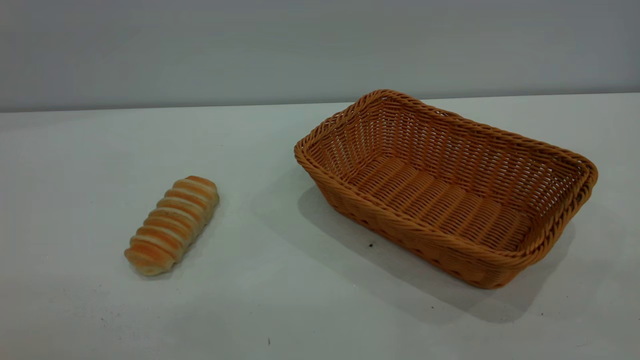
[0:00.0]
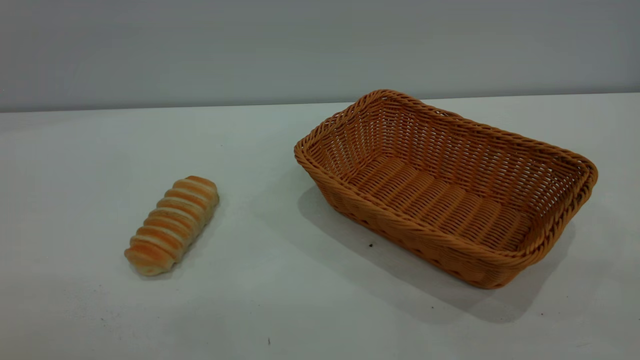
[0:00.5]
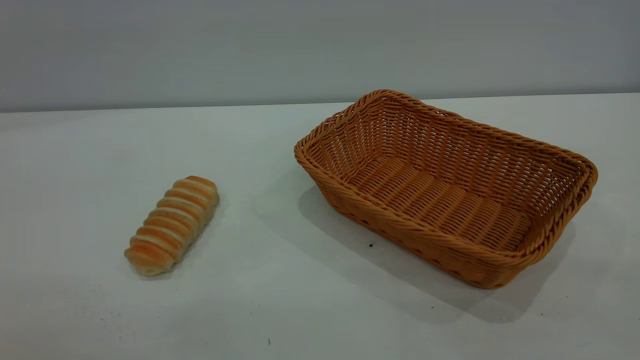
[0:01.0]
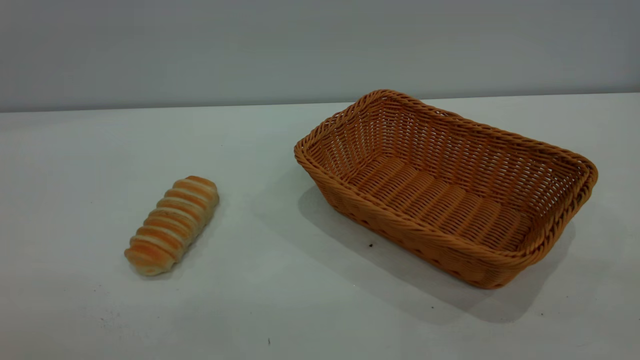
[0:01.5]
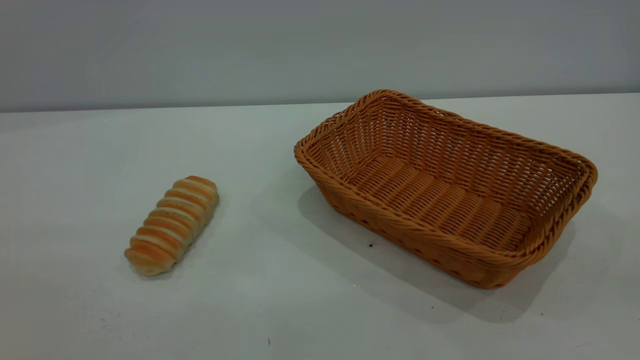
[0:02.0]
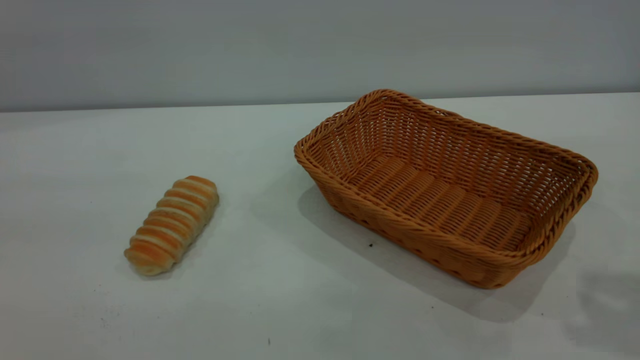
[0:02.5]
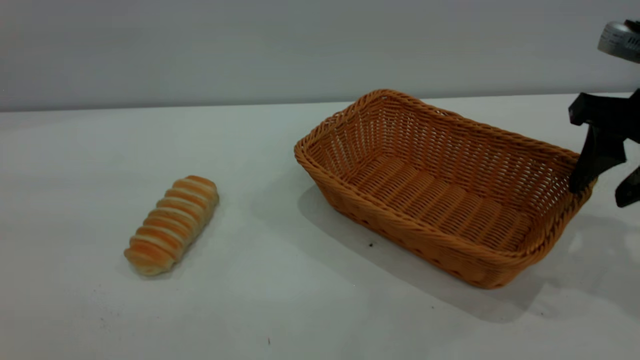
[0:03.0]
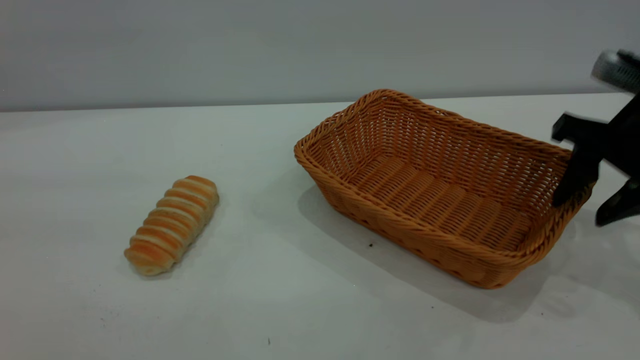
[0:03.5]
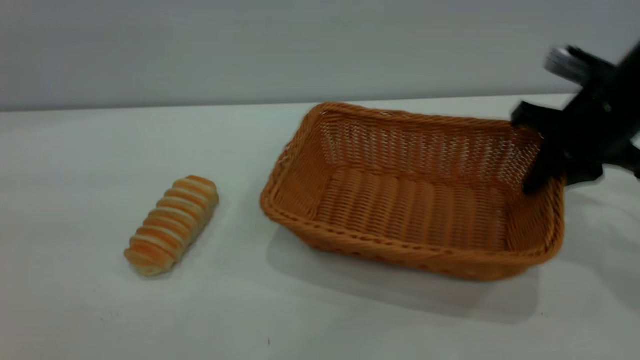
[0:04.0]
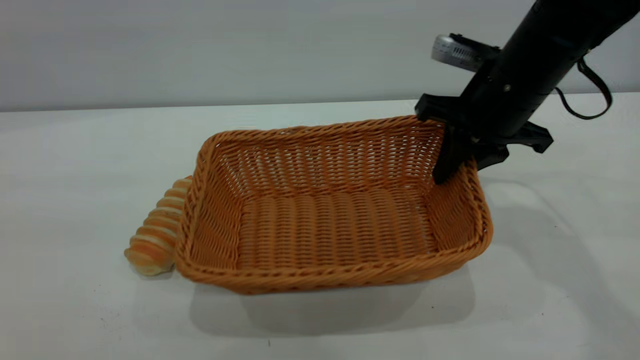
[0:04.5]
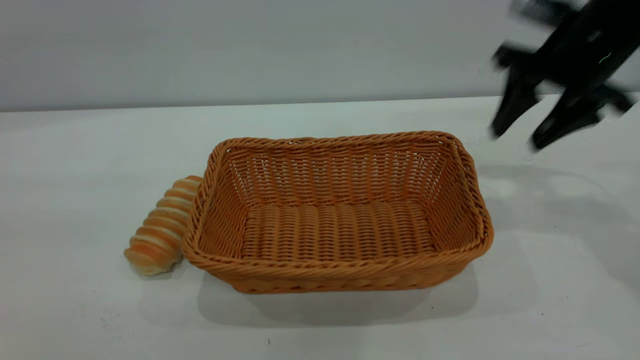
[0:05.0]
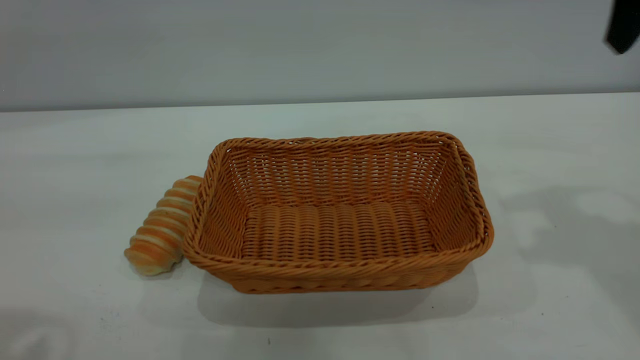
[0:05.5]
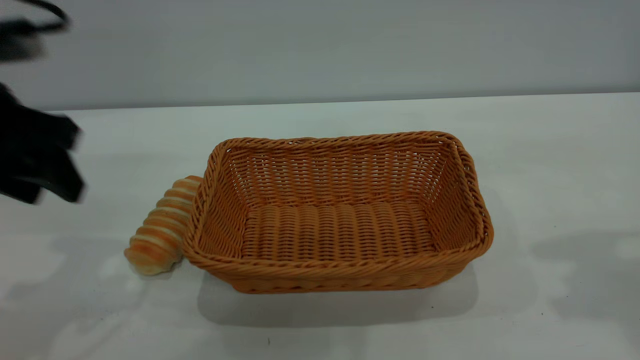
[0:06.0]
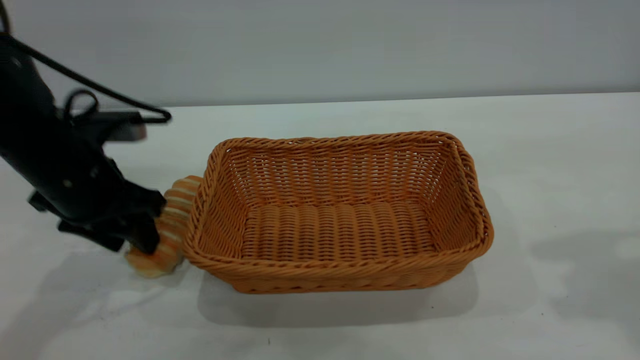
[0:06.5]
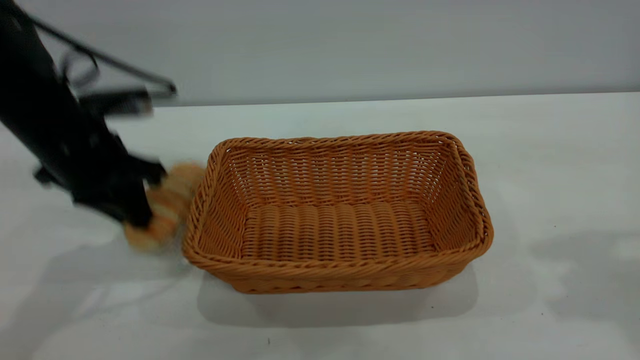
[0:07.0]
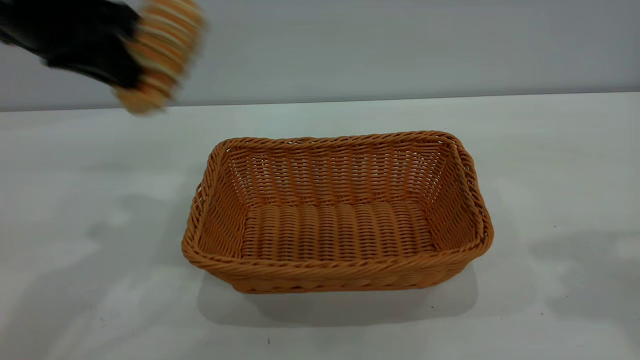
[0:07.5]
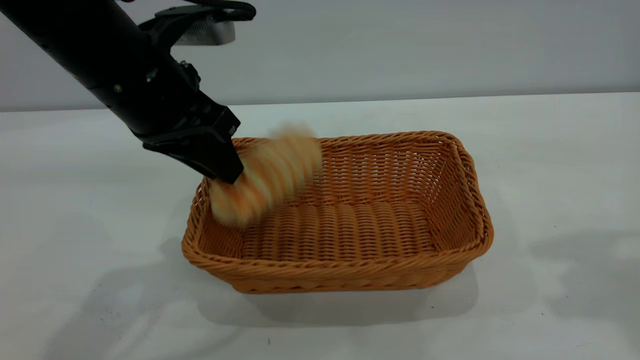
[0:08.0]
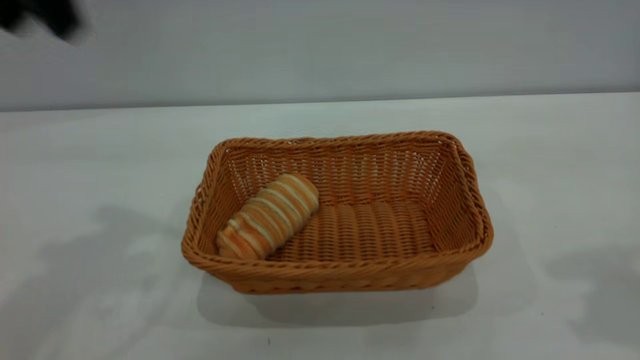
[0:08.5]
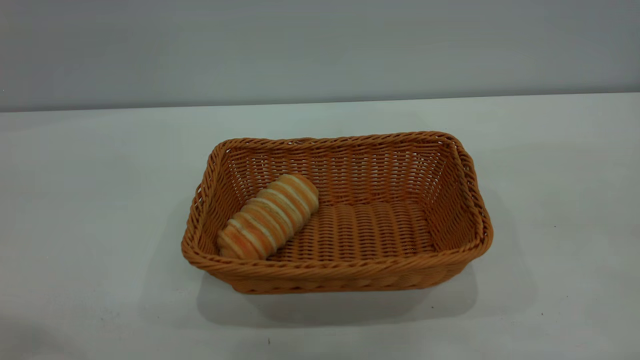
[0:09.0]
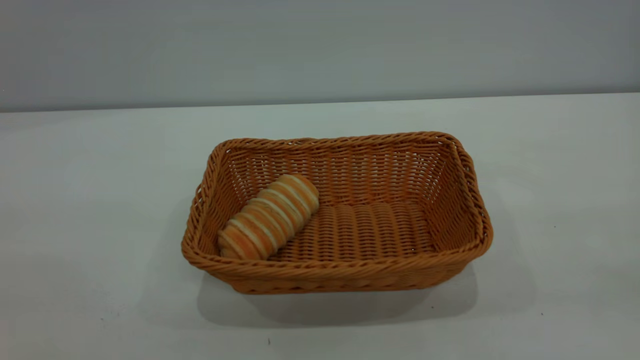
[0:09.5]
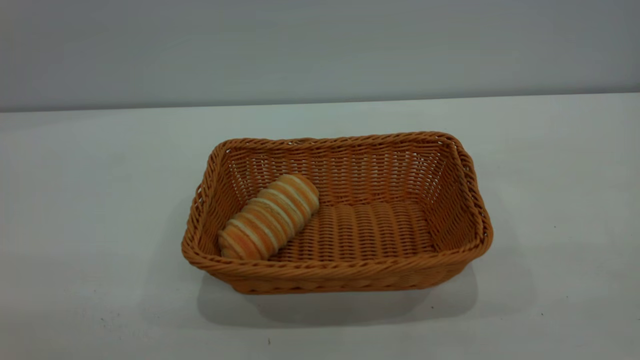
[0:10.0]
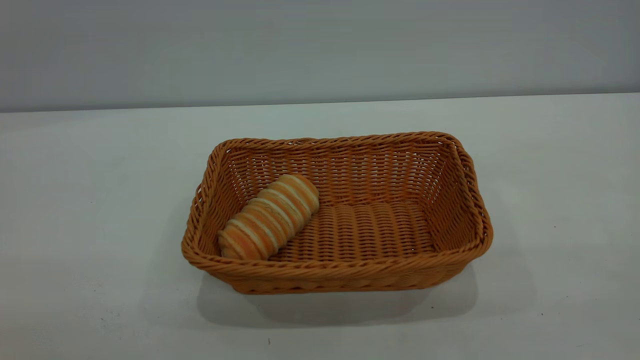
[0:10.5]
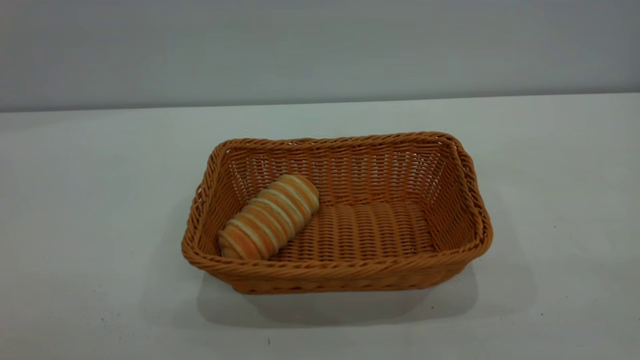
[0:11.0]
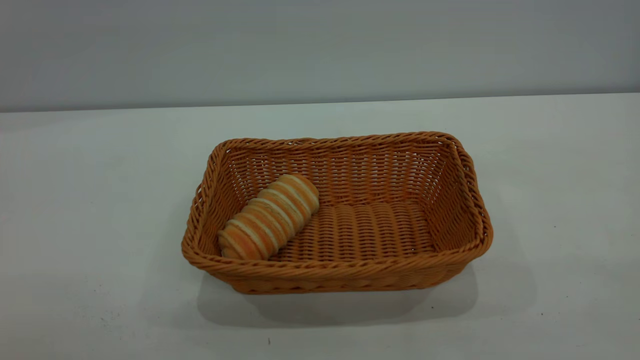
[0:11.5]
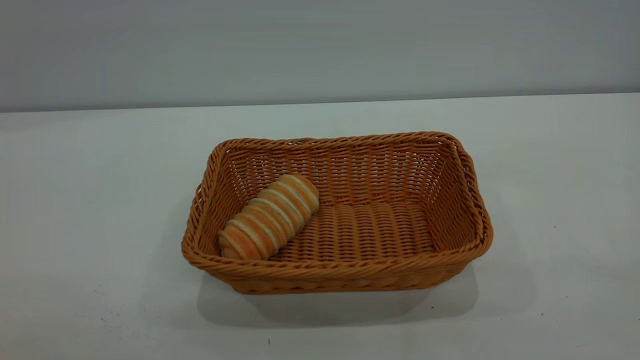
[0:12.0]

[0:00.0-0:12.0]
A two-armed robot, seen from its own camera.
Task of the whole recording: One hand grasps the yellow basket and places it in the middle of the table, while the other hand picks up the long bread and puts it into the yellow basket.
Step, 0:00.0 to 0:04.5: Move the basket to the center of view.
Step, 0:07.5 to 0:08.0: place the bread into the basket.
0:02.0 to 0:04.0: The right gripper moves forward and downward, about 40 cm, and closes up; the left gripper heads forward, covering approximately 5 cm.
0:04.0 to 0:06.0: The right gripper travels upward and backward by some 25 cm, and opens its fingers, while the left gripper goes roughly 25 cm forward and downward.
0:06.0 to 0:08.0: The left gripper goes up and down, approximately 15 cm each way, reversing 2 times, and closes and opens again.
0:08.0 to 0:10.0: The right gripper travels backward by approximately 25 cm. Meanwhile the left gripper moves backward and to the left, approximately 35 cm.
